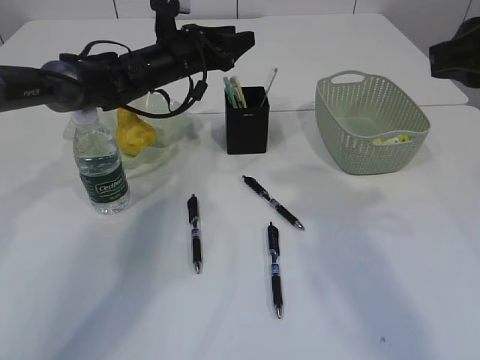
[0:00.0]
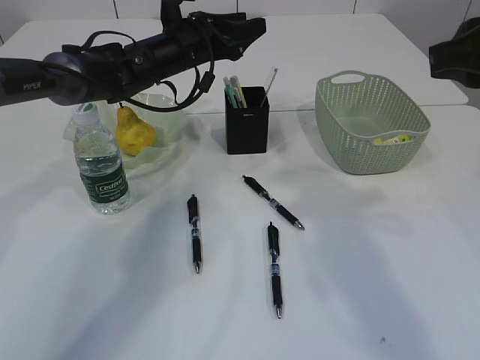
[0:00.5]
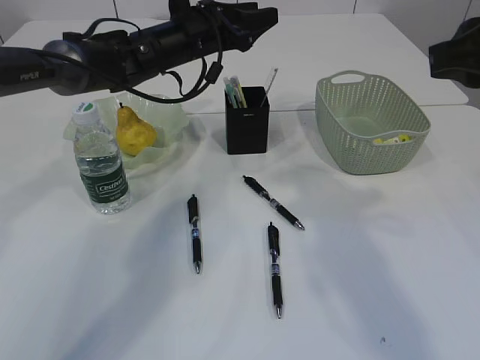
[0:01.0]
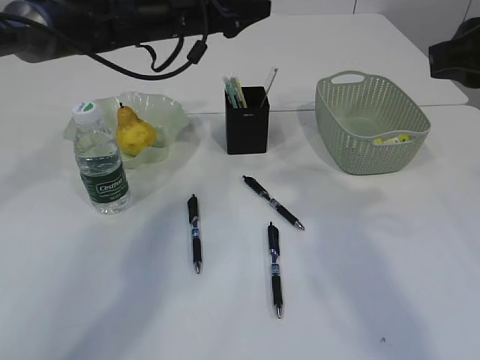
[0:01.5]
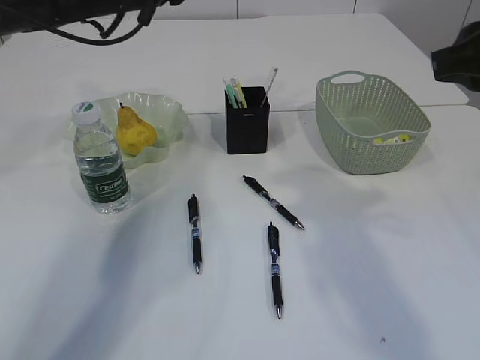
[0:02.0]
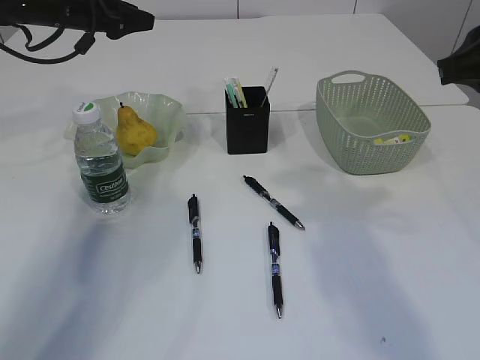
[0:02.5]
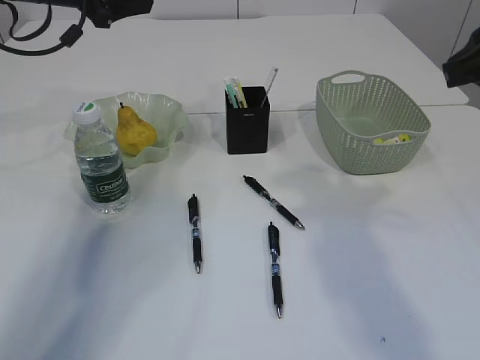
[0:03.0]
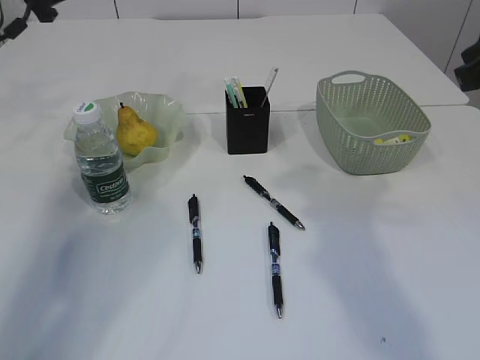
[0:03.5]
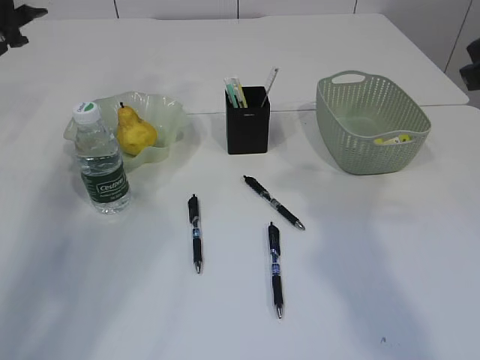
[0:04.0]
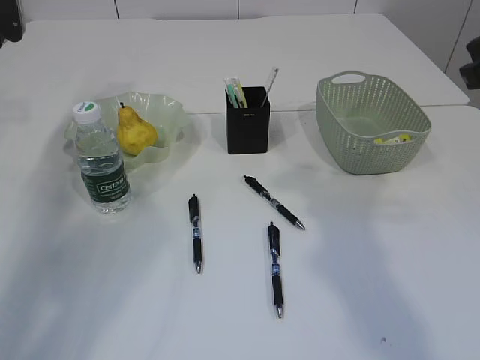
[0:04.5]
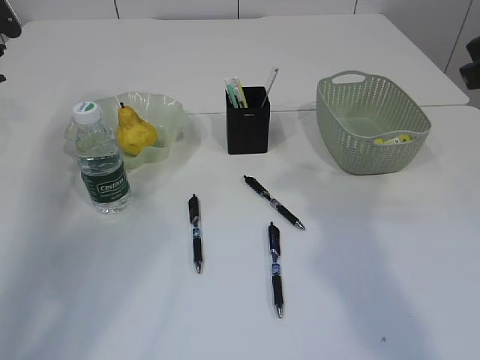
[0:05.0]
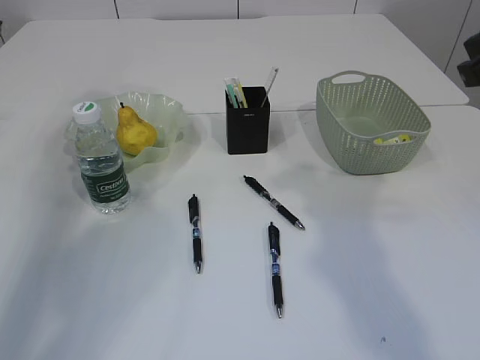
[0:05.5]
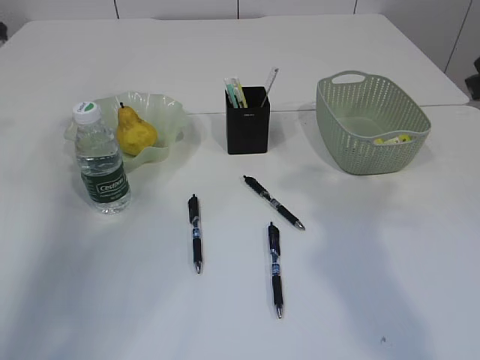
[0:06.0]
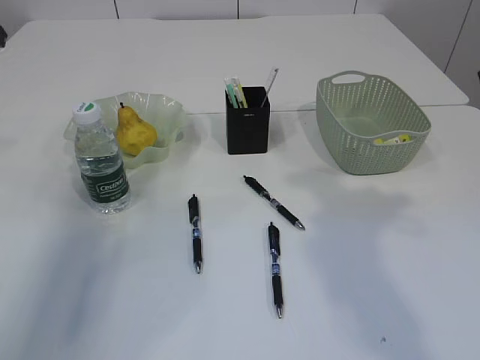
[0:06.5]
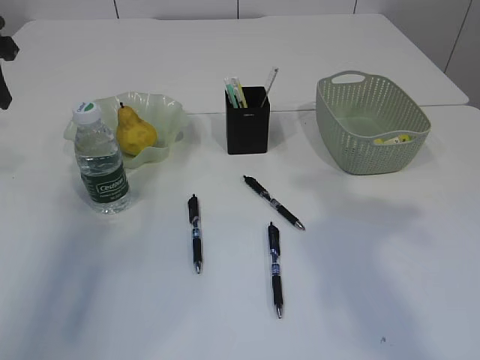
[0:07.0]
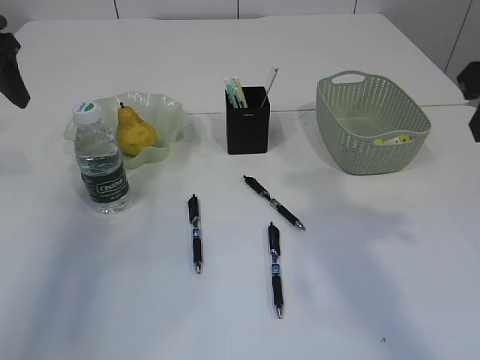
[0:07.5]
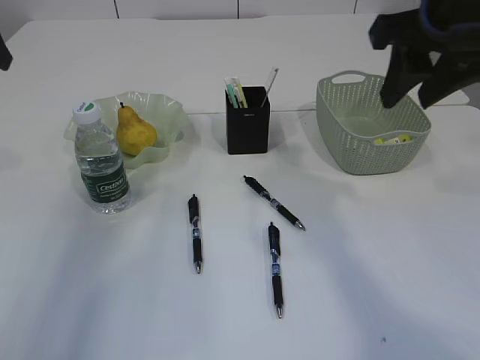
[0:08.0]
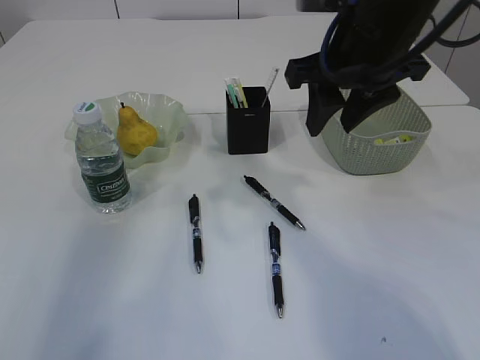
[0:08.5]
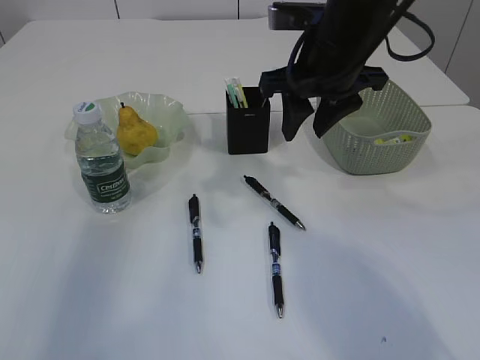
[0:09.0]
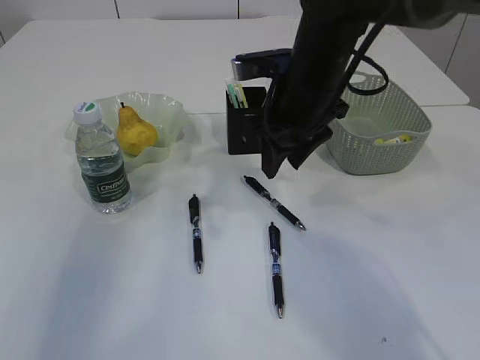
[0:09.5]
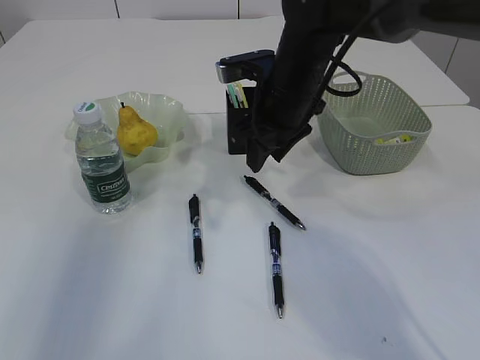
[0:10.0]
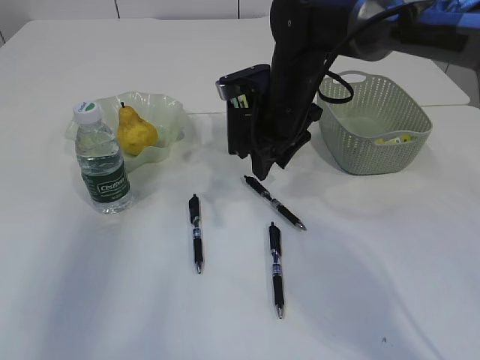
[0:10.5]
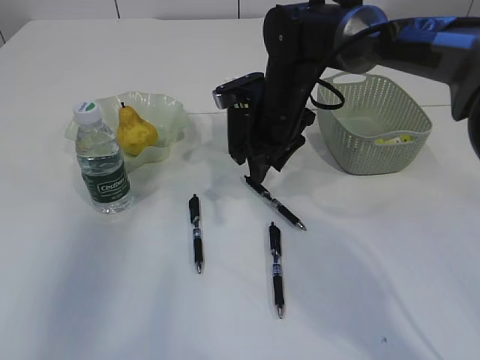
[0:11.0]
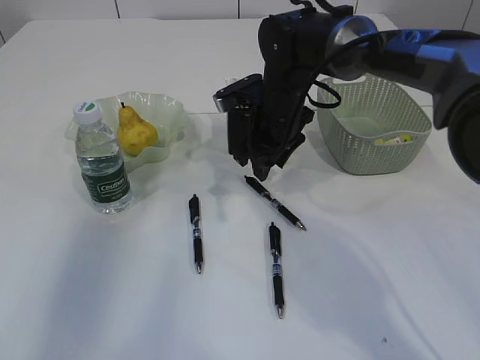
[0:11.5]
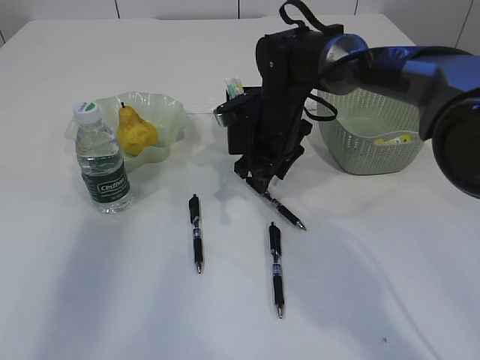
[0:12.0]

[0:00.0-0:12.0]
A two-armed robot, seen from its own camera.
0.0 to 2.0 s: The left gripper travels upward and to the left by roughly 10 cm.
2.0 to 4.0 s: The left gripper shifts some 20 cm to the left.
4.0 to 6.0 s: The left gripper shifts approximately 5 cm backward, and closes up.
6.0 to 8.0 s: The right gripper goes roughly 10 cm to the left and forward, while the left gripper travels backward, upward and to the right by roughly 15 cm, and opens.
8.0 to 10.0 s: The left gripper is displaced backward by roughly 10 cm; the right gripper is displaced downward, to the left and forward by roughly 20 cm.
10.0 to 12.0 s: The right gripper travels downward by about 10 cm.

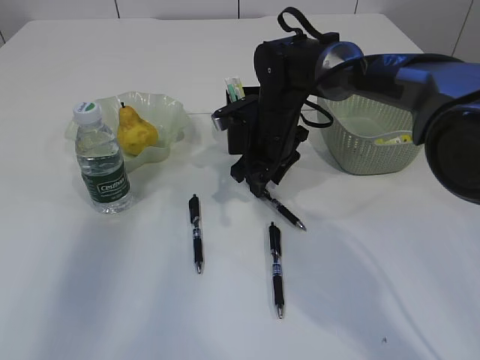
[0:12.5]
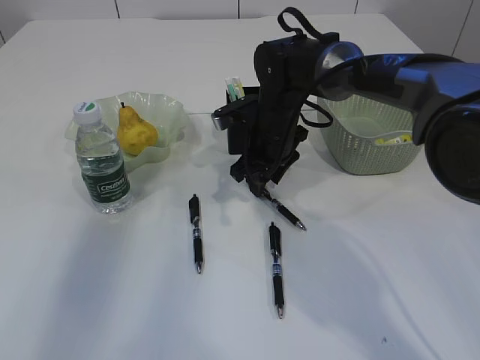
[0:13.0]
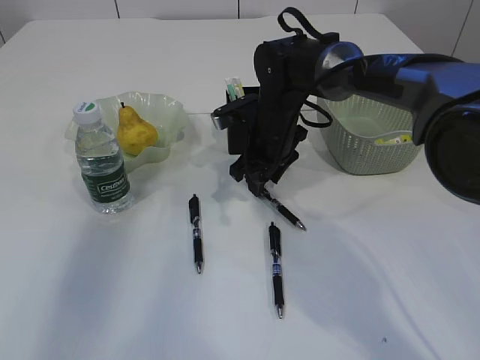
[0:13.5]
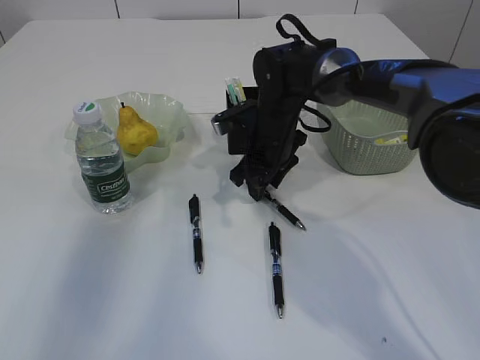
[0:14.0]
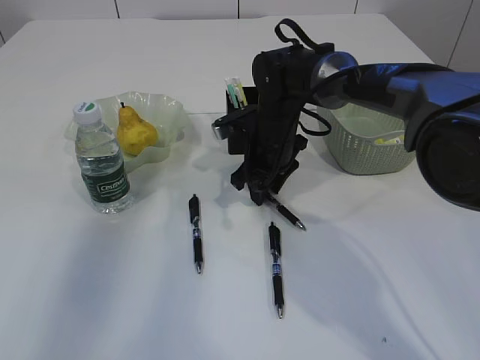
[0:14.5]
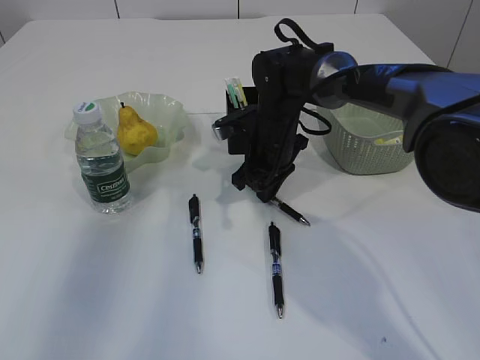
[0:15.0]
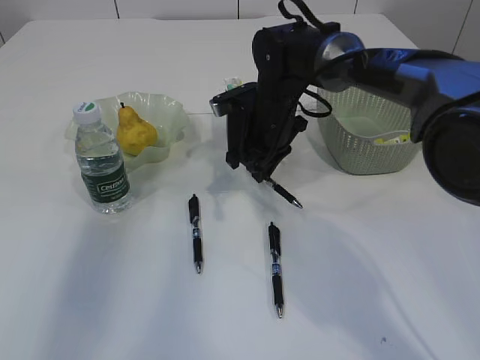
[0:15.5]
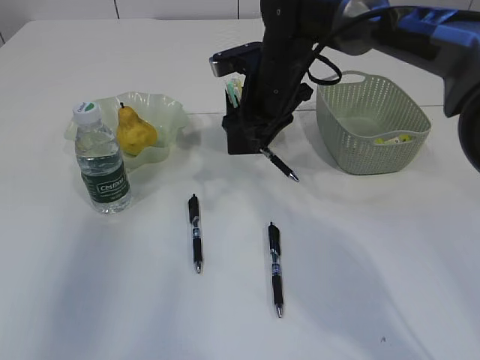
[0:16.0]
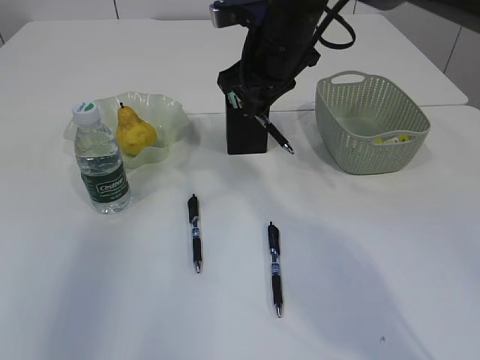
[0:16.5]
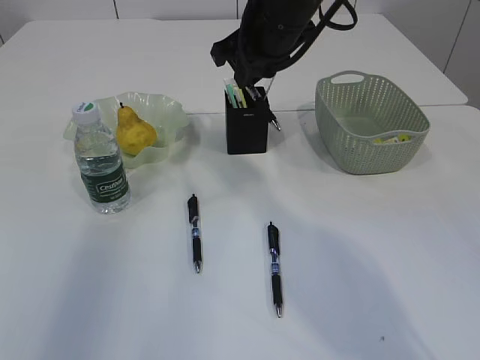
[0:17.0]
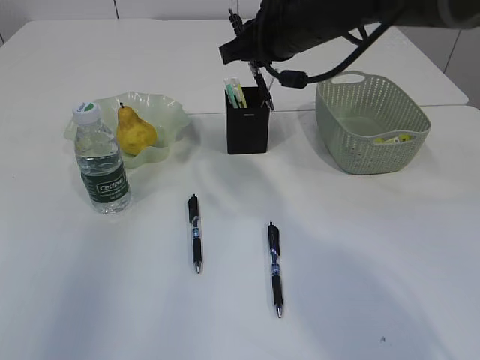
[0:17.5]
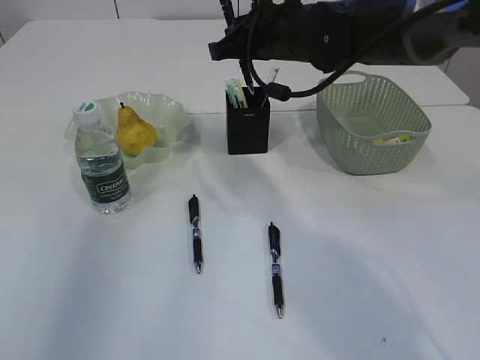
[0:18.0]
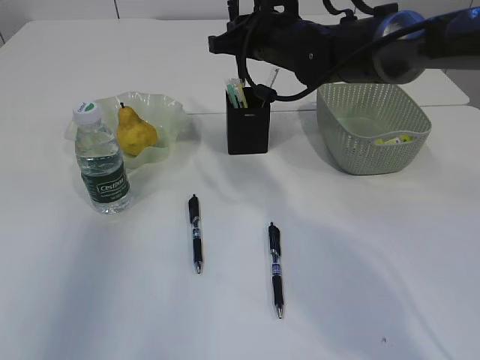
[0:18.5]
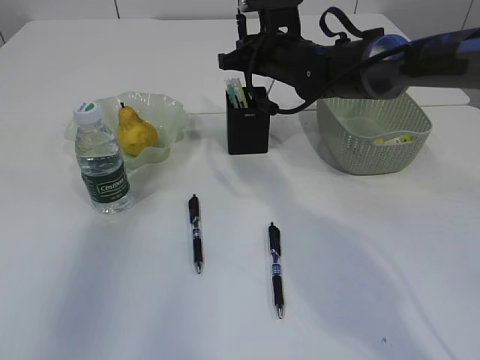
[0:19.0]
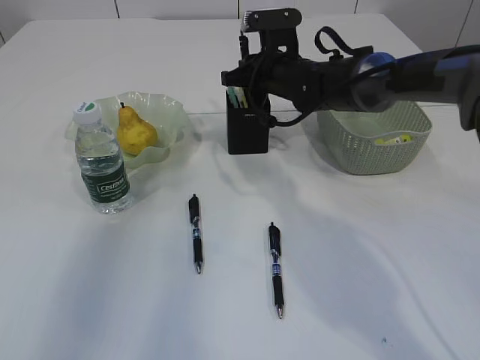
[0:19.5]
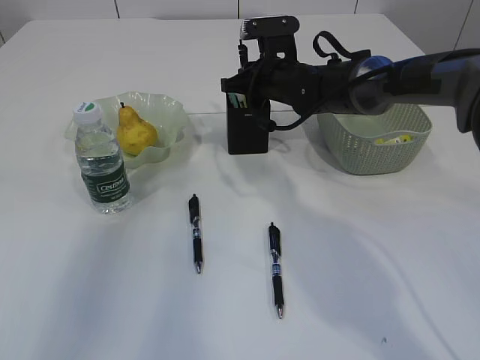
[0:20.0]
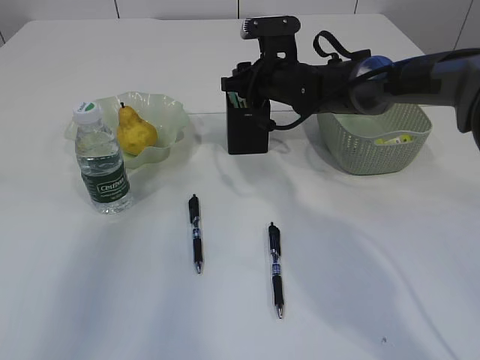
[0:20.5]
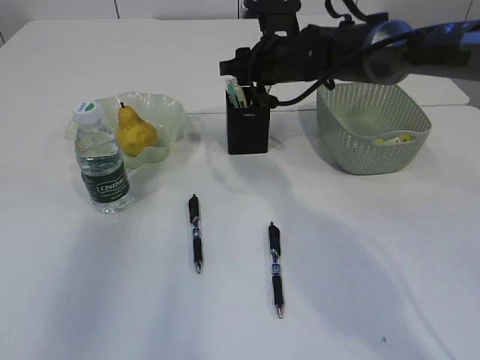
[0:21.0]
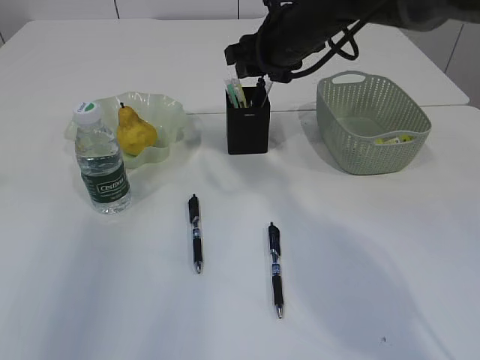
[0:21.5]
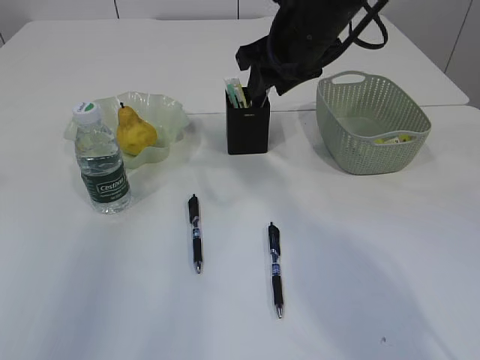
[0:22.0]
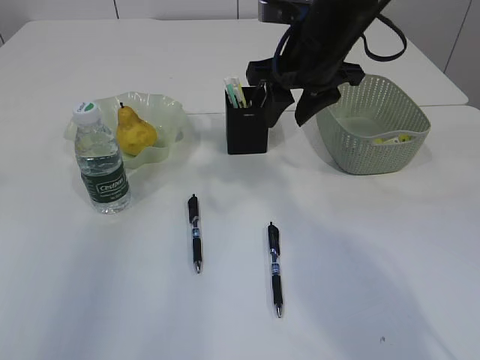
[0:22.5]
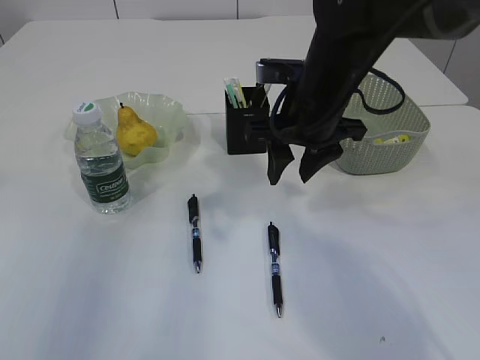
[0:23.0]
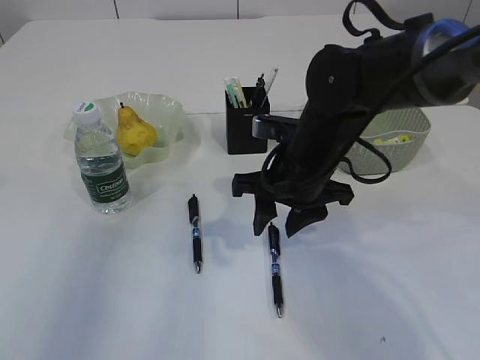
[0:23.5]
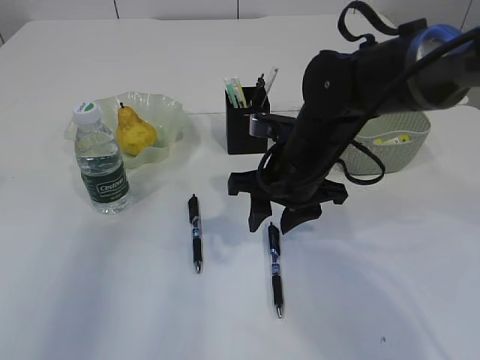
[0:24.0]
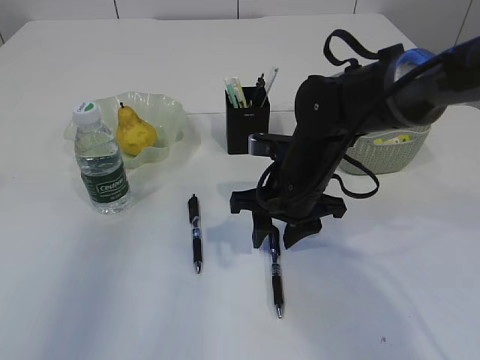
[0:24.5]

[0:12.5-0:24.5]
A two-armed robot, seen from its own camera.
Step, 12.5 to 15.5 s: Pick up the pen with right arm.
Step, 16.0 to 22.0 s: Place the pen into the pen holder.
12.5 to 14.5 s: The two grippers keep their place.
14.5 to 16.5 s: The right gripper heads upward, covering approximately 15 cm, and closes.
18.5 to 20.5 s: The right gripper moves downward, roughly 5 cm, and opens up.
20.5 to 22.5 s: The right gripper is displaced upward and backward by about 15 cm.
22.5 to 24.5 s: The right gripper travels downward and backward by roughly 15 cm.

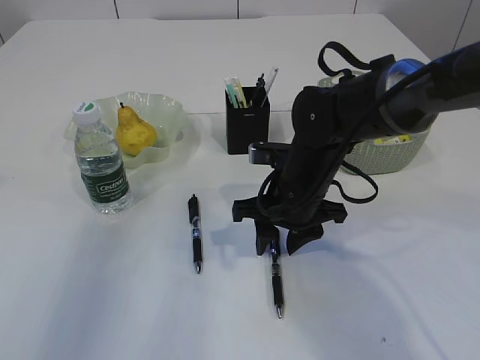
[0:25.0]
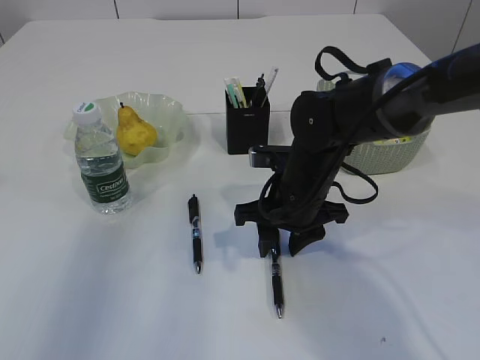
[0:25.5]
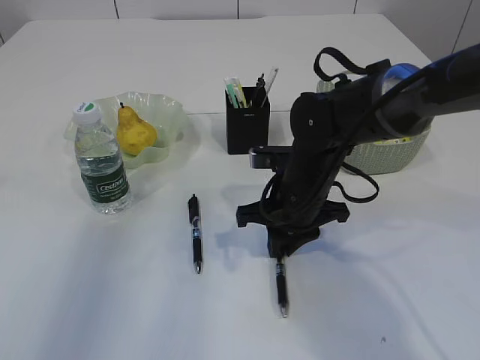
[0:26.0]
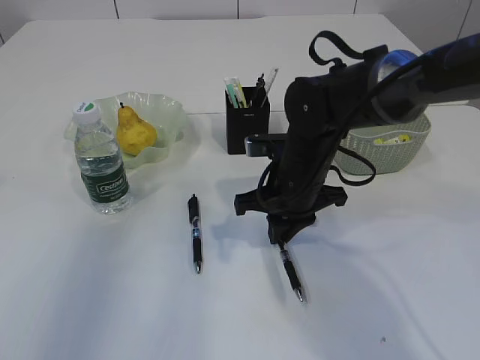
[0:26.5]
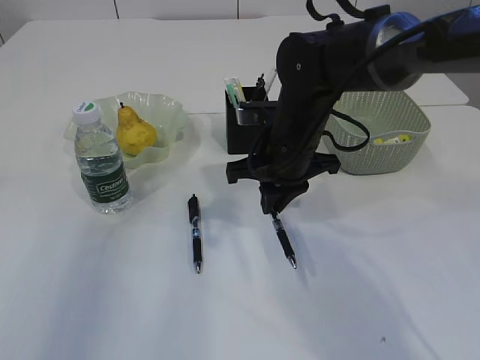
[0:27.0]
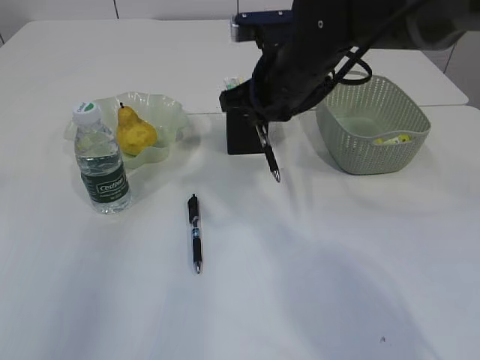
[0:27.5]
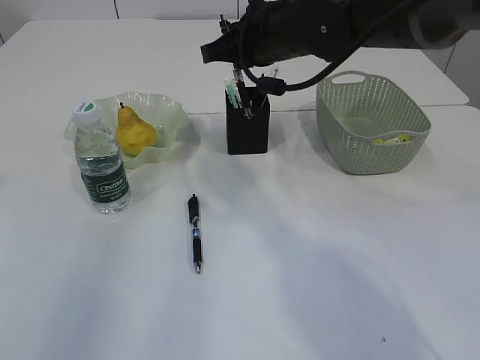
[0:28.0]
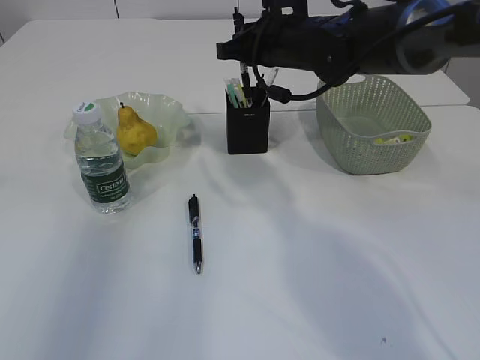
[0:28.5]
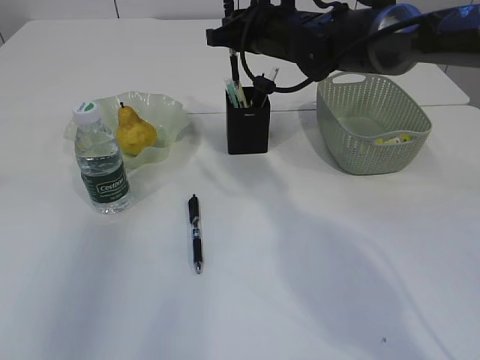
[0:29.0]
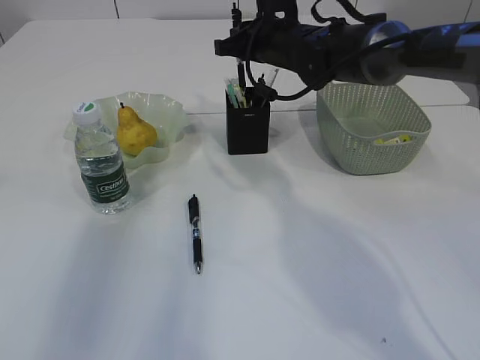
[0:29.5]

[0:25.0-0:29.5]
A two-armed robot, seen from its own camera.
25.0 to 27.0 s: The right gripper ends up some 5 cm from where it was, and closes up.
27.0 to 29.5 s: The right gripper shifts some 15 cm forward.
